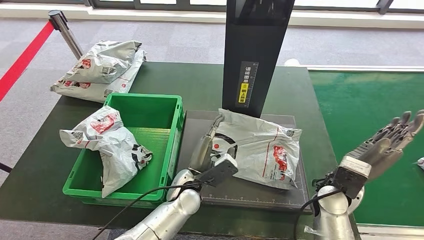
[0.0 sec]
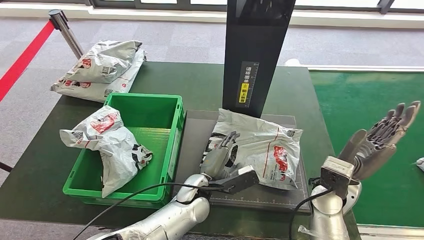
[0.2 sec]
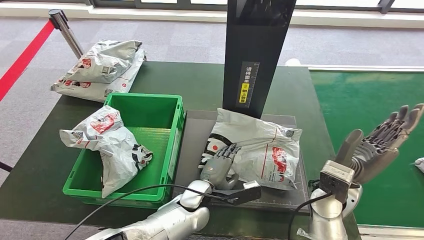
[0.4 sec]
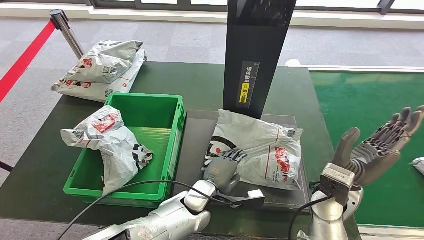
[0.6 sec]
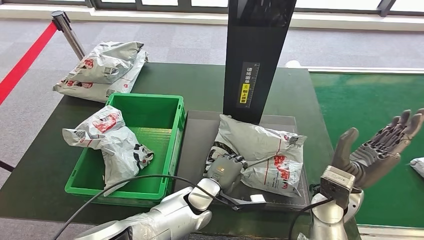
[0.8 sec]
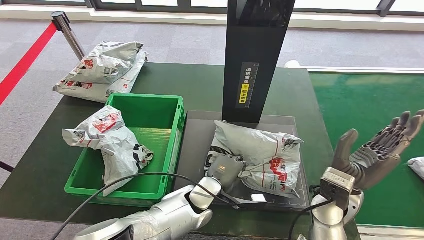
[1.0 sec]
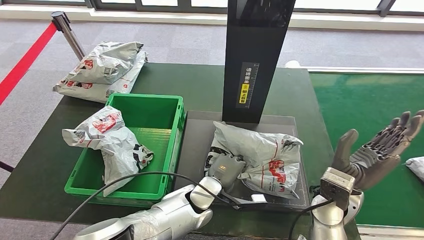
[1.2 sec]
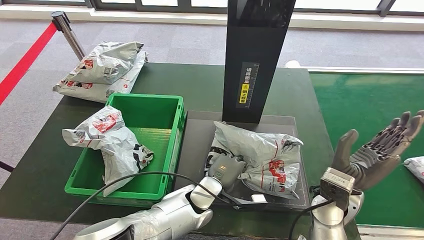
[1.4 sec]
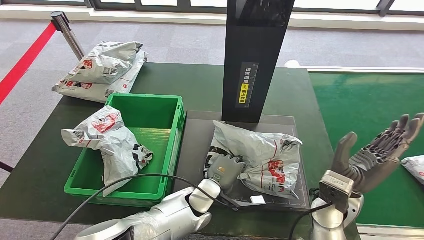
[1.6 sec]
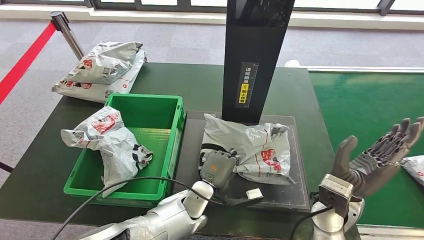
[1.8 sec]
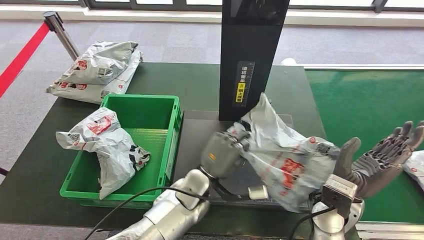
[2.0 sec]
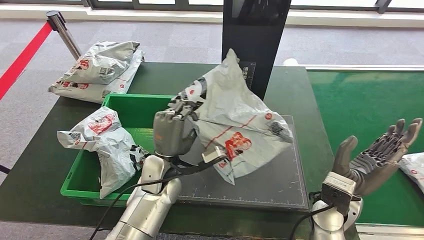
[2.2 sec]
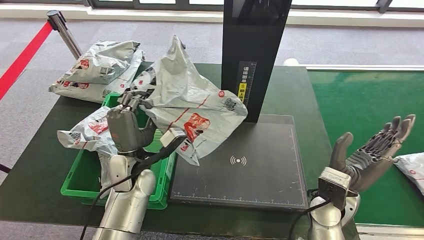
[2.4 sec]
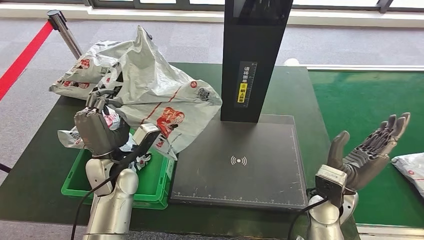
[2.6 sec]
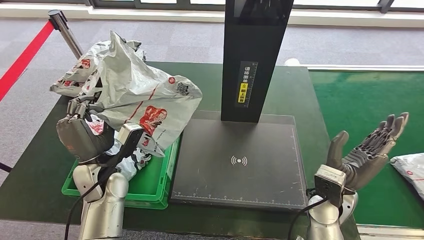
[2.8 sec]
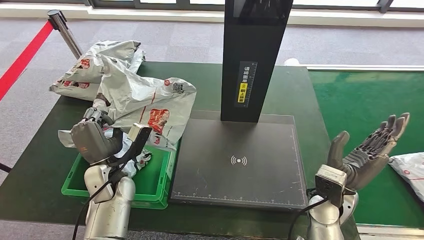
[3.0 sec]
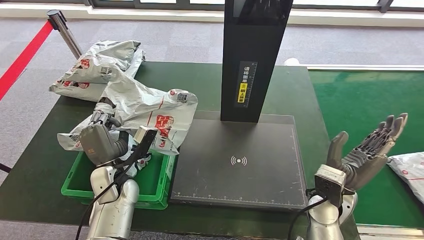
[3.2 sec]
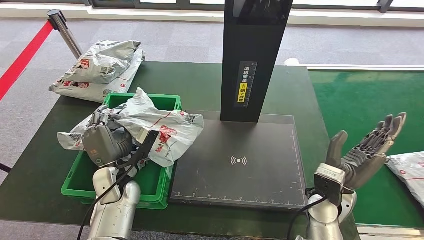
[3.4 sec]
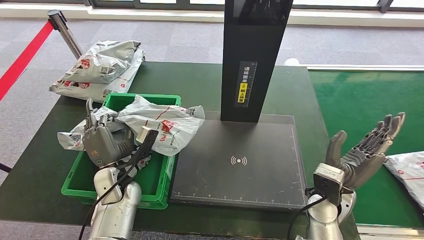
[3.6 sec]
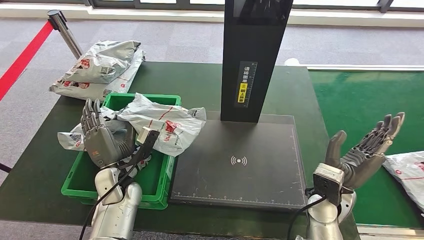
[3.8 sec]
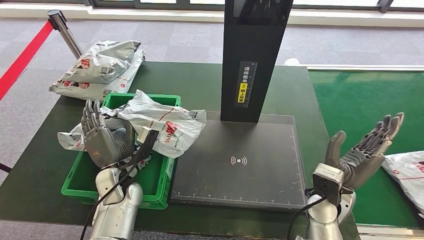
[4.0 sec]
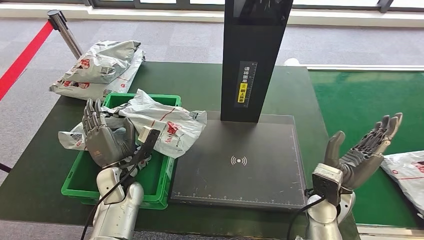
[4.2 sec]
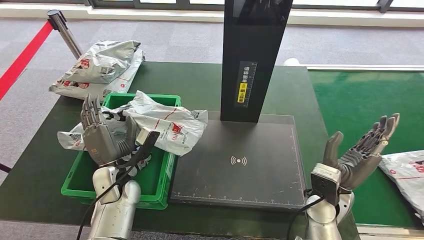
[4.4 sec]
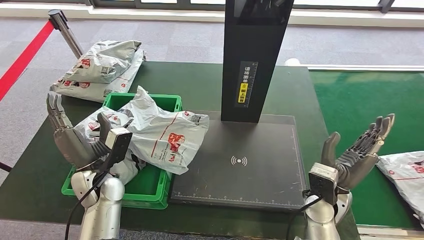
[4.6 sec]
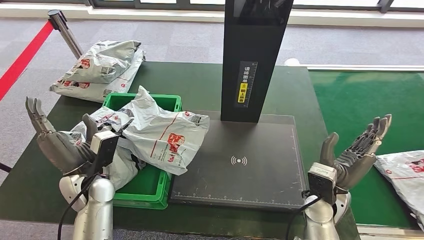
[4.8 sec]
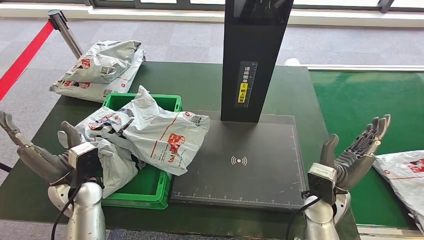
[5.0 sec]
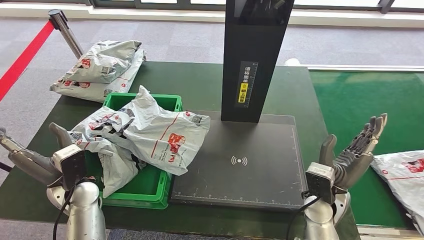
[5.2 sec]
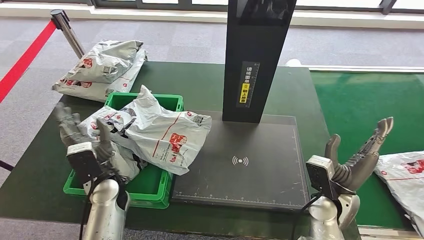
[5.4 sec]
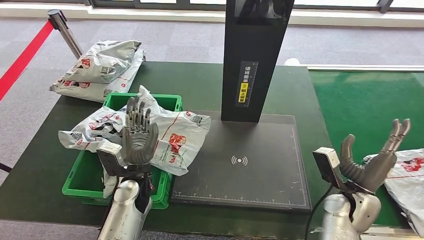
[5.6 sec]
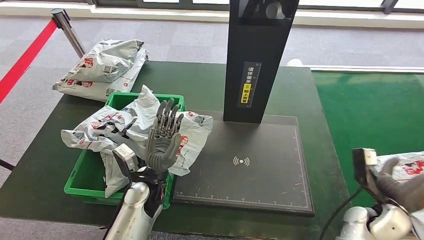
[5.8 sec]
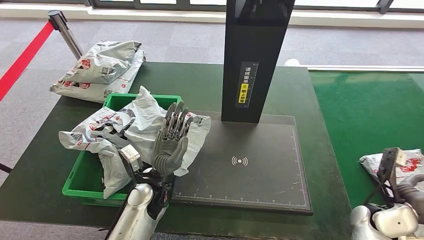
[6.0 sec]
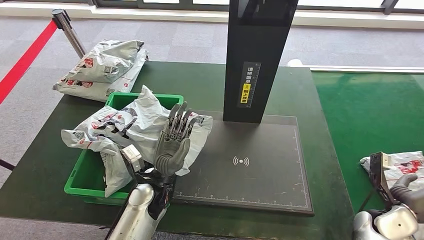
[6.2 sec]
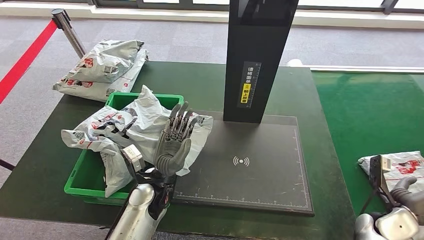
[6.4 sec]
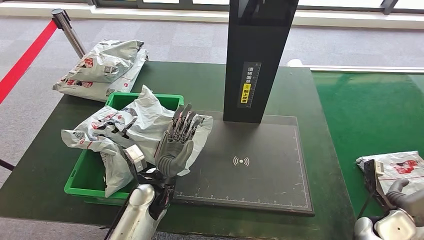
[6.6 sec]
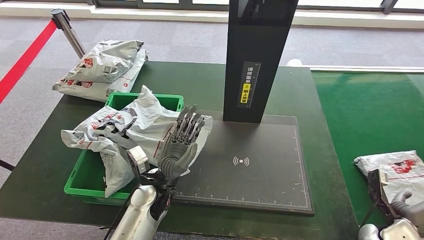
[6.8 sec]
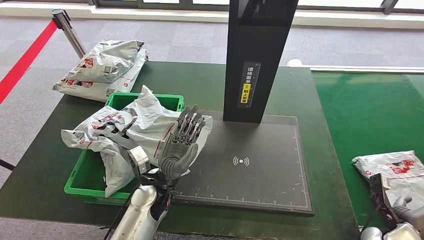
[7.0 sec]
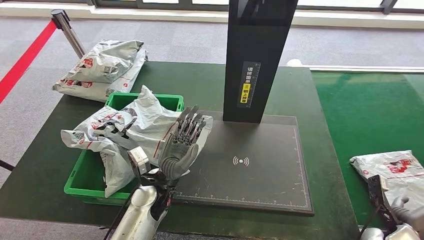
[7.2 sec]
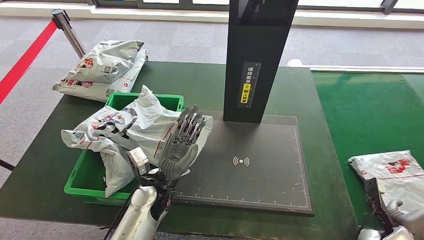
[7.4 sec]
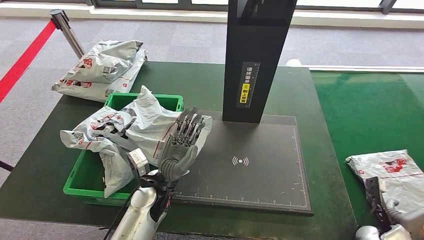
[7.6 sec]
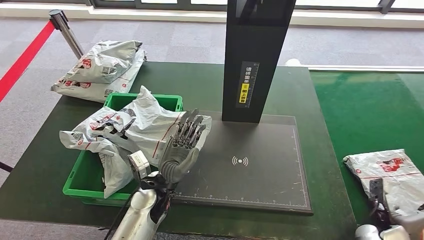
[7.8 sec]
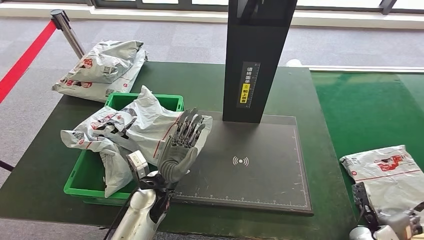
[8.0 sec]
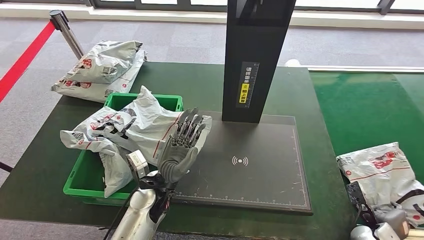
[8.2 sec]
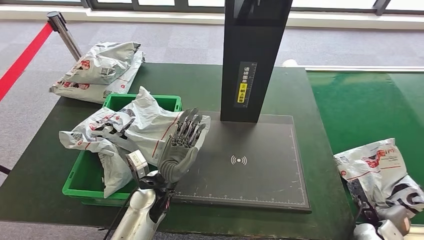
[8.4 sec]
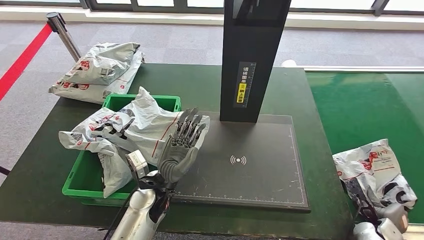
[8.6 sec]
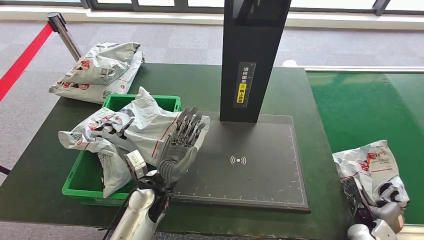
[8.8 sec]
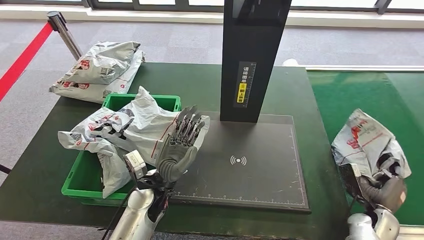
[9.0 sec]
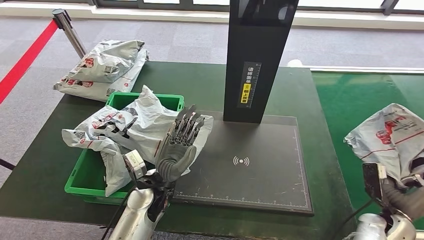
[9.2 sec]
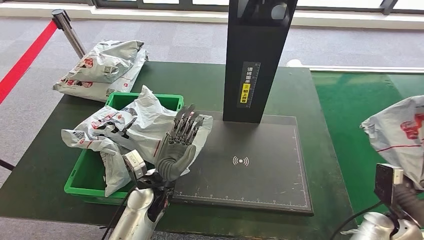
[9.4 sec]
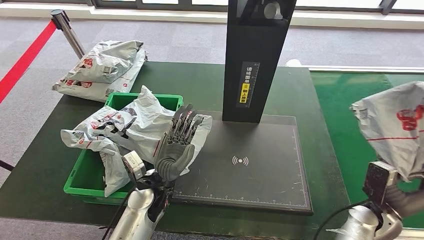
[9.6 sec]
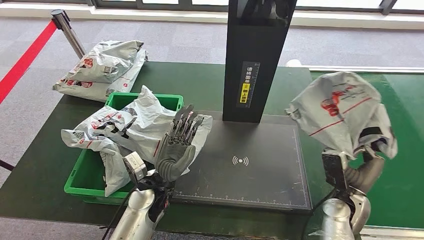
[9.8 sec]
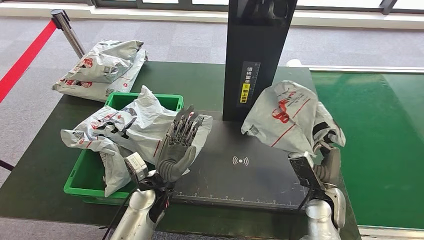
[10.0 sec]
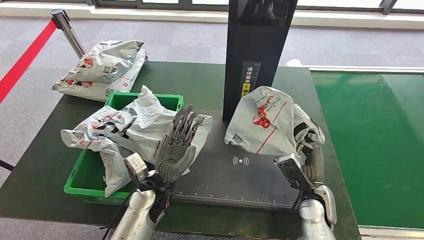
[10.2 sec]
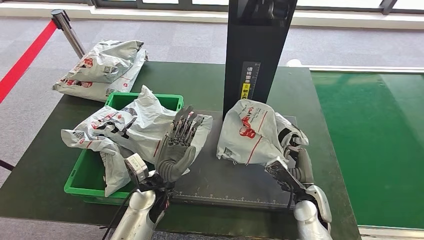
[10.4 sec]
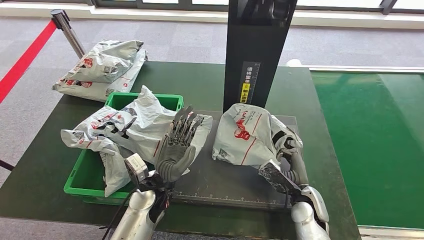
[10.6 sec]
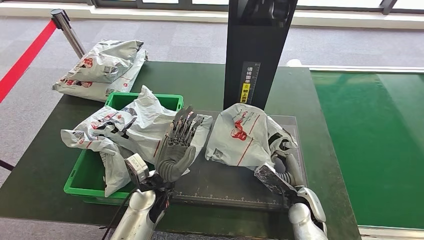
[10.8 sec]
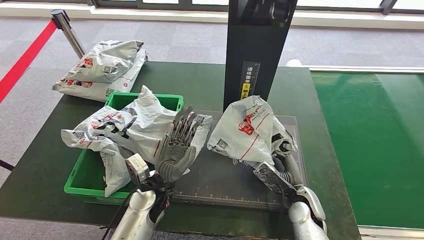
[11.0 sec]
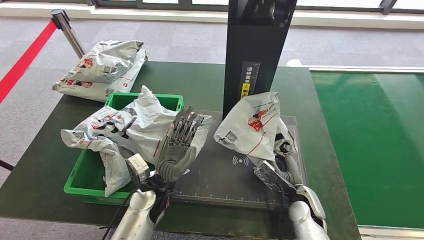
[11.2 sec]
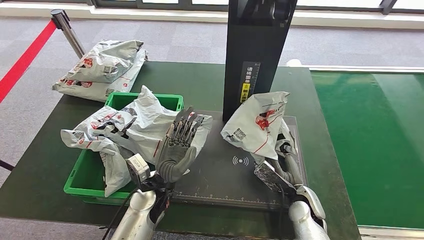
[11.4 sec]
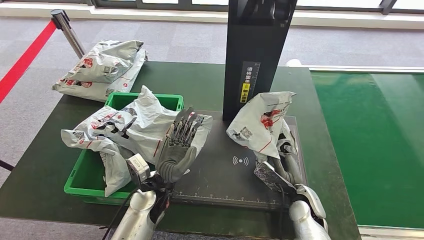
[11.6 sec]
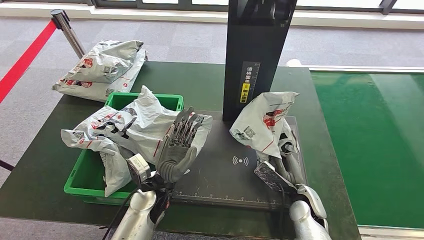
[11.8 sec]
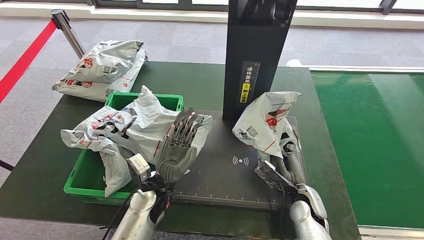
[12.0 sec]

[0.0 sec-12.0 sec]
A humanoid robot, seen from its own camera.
Step, 0.0 sec to 2.4 sec: Pick up the parcel from the inbound machine.
Step, 2.8 sec to 5.6 sec: Place the parcel into the delivery box.
Step, 5.8 sec to 9.8 sec: Pick up the parcel from the conveyor belt.
3.0 sec to 4.4 sec: The hands stay close to where they were, moving slightly.
6.0 sec to 7.6 sec: The right hand moves downward and to the right, approximately 10 cm.
10.4 sec to 12.0 sec: There are only small adjustments of the hands.

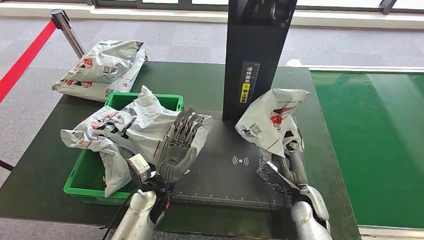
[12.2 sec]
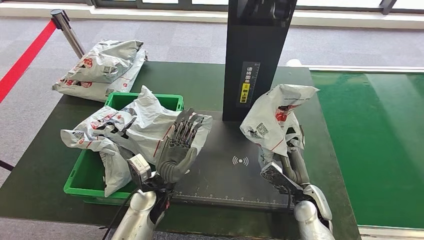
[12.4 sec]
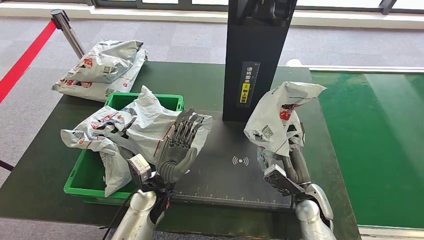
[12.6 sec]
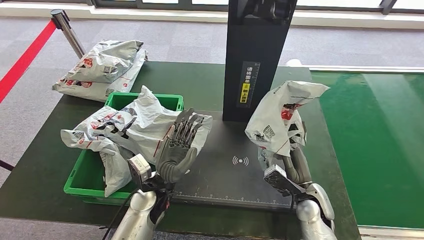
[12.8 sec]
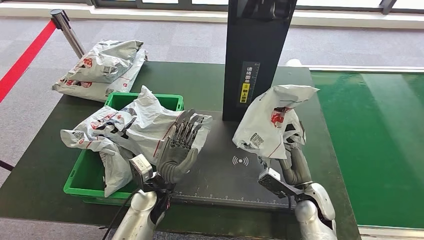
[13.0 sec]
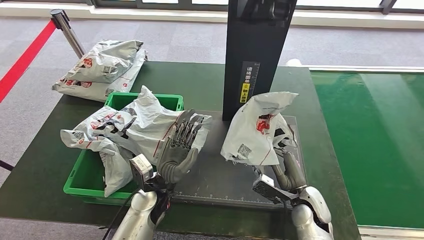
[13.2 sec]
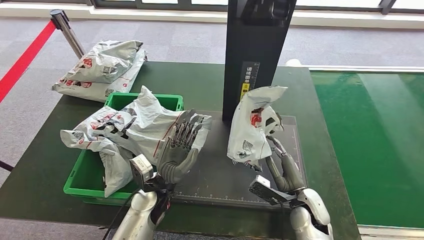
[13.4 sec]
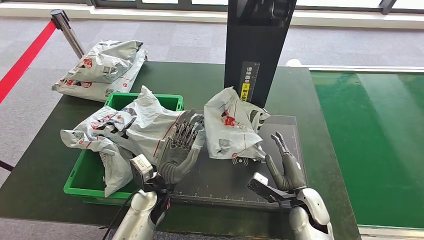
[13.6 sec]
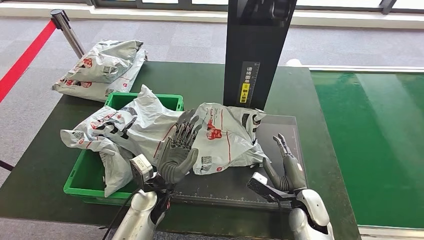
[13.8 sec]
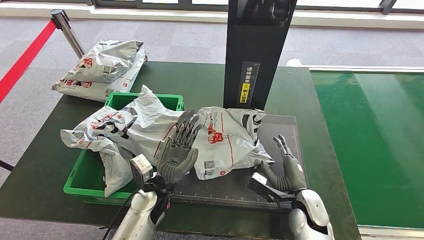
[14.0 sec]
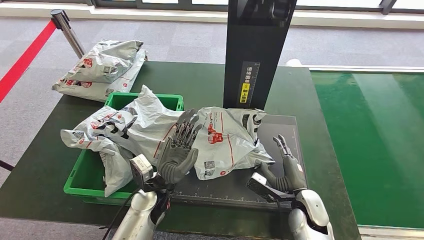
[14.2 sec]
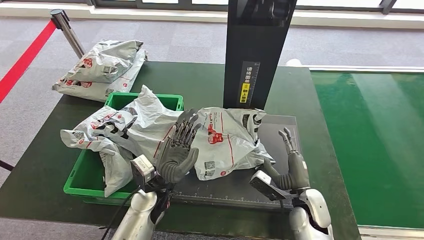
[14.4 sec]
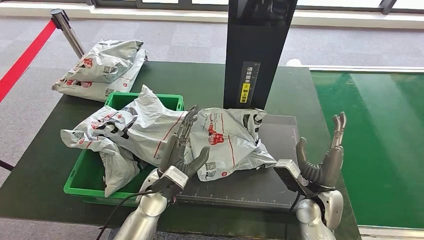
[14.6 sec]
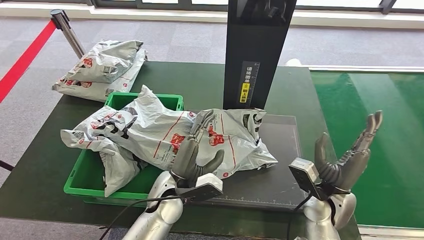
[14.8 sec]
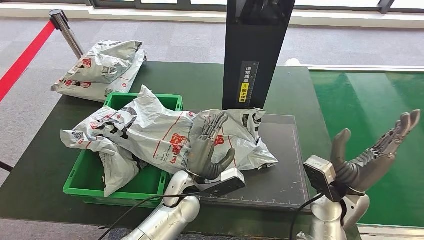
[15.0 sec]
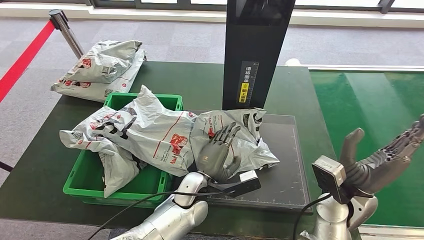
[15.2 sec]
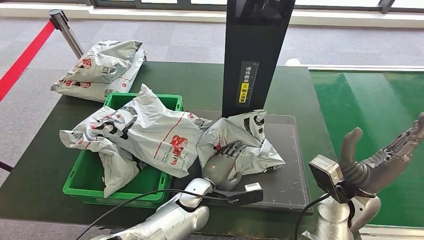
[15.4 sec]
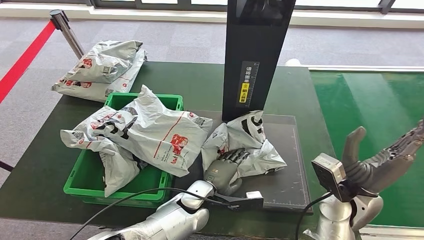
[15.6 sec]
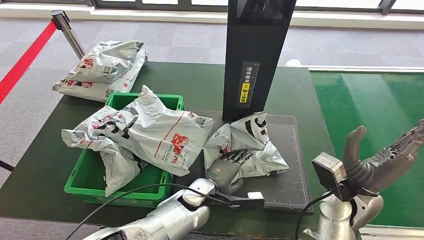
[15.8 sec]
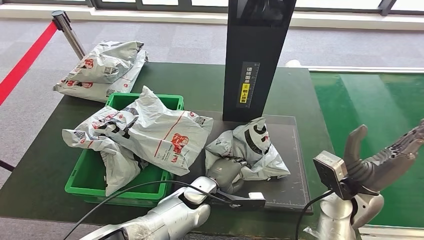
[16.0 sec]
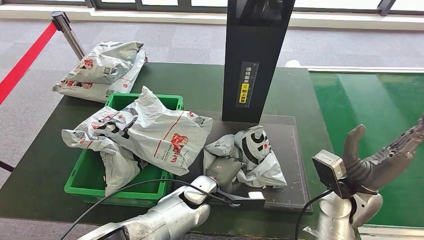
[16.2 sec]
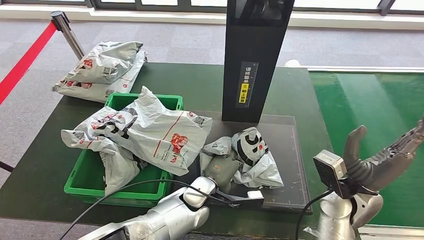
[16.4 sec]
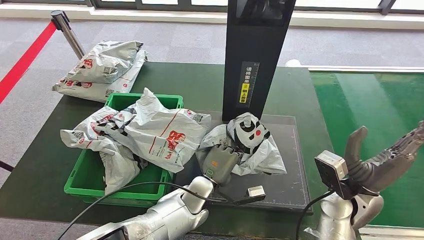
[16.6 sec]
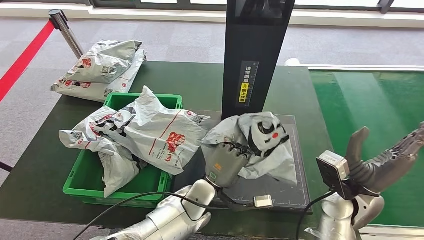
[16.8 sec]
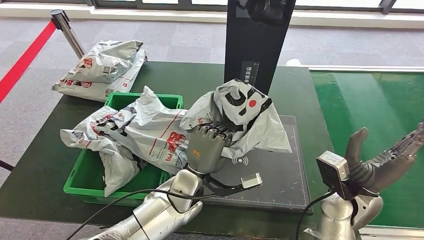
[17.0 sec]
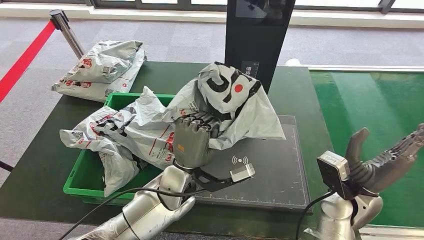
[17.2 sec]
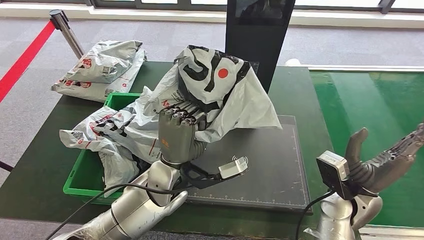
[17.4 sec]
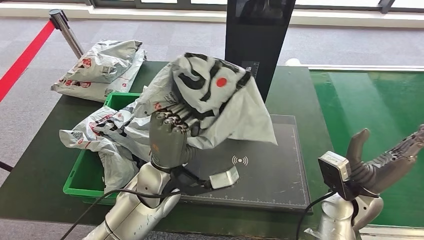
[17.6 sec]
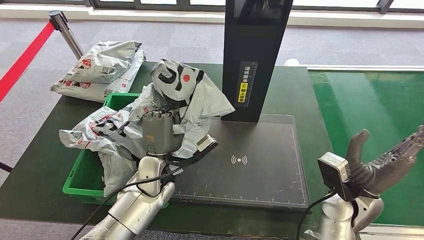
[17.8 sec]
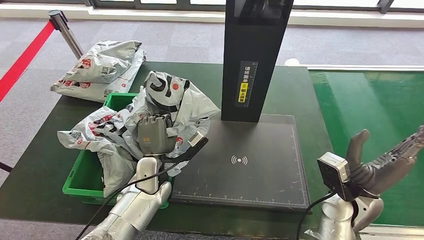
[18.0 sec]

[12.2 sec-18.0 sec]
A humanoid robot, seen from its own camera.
Step, 12.2 sec to 15.0 sec: Place the parcel onto the inbound machine.
Step, 15.2 sec to 17.6 sec: Pick up the parcel from the inbound machine.
12.2 sec to 13.6 sec: There are only small adjustments of the hands.
